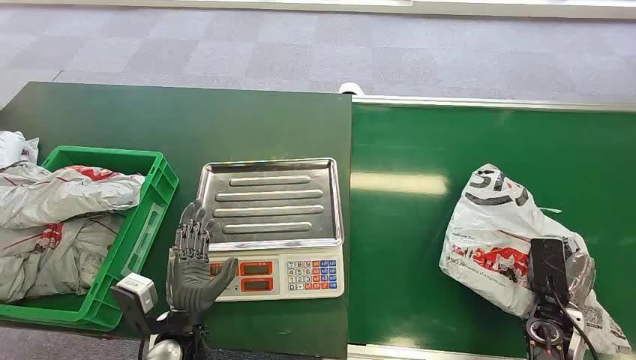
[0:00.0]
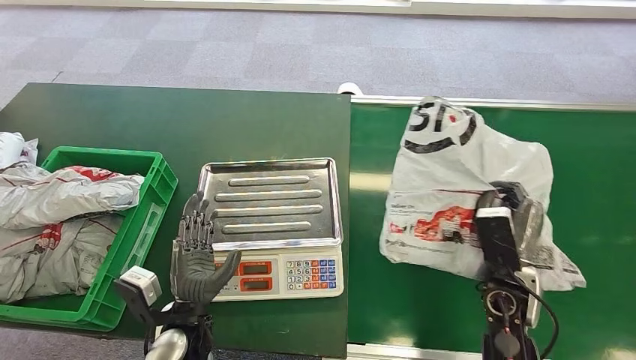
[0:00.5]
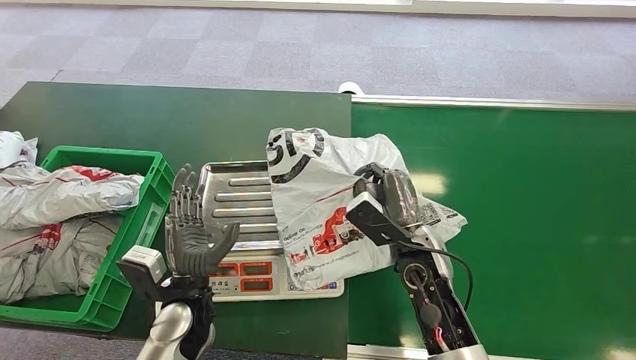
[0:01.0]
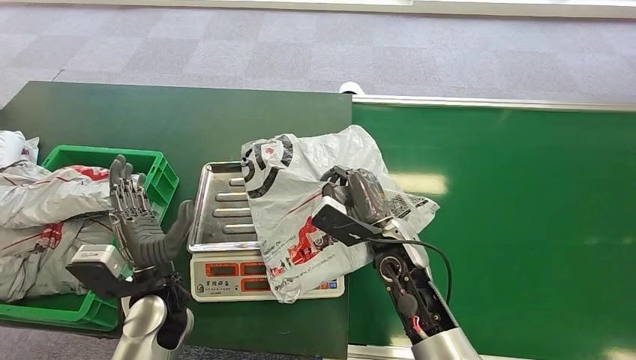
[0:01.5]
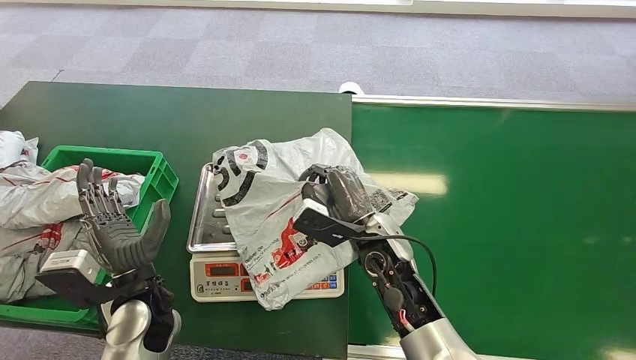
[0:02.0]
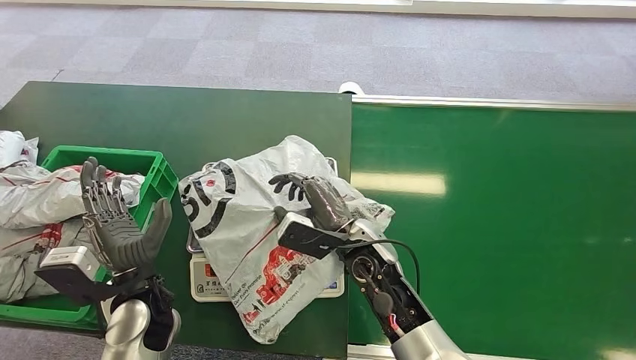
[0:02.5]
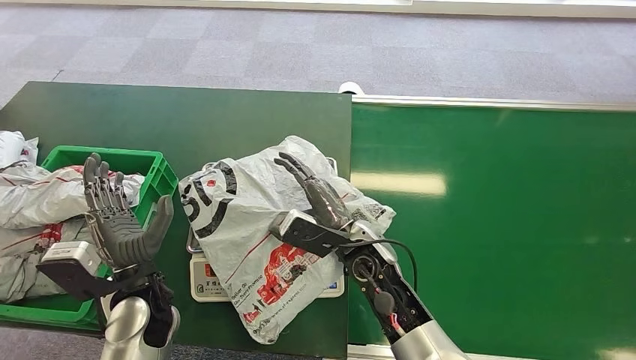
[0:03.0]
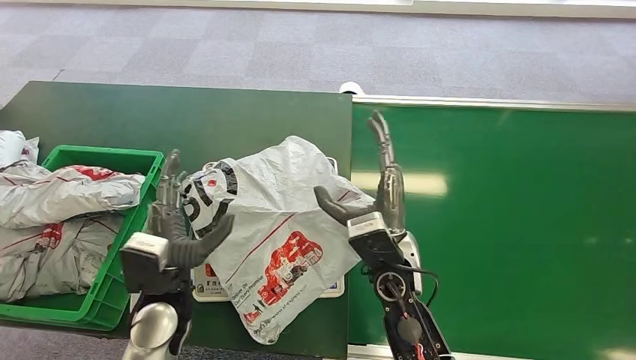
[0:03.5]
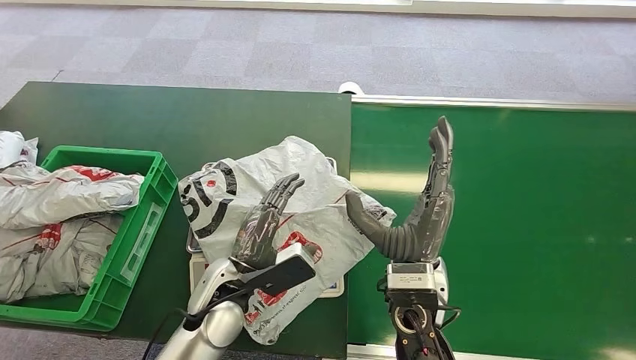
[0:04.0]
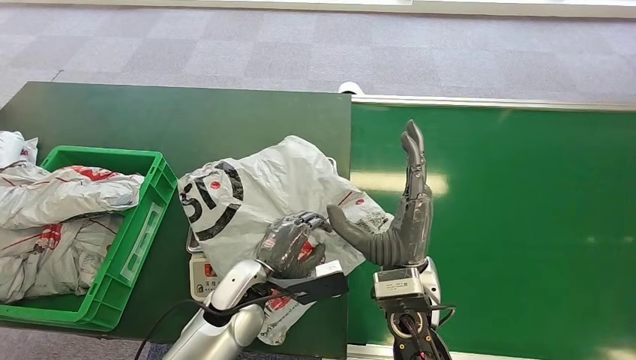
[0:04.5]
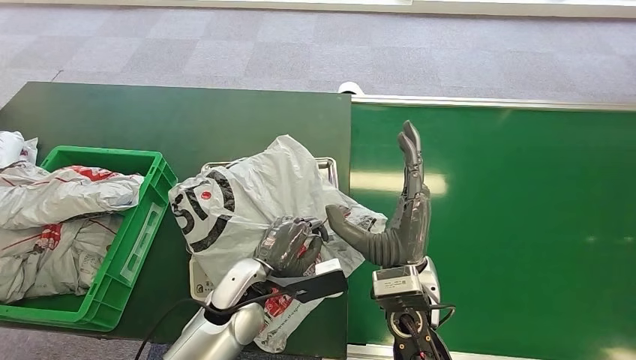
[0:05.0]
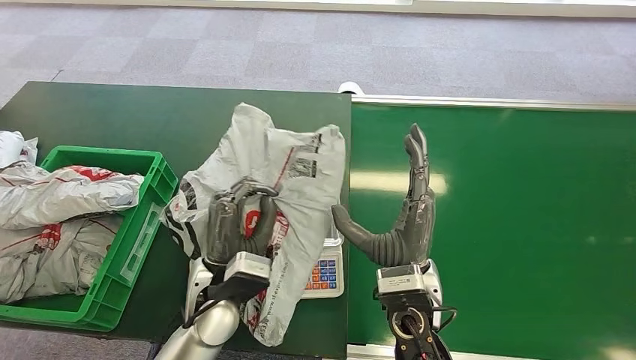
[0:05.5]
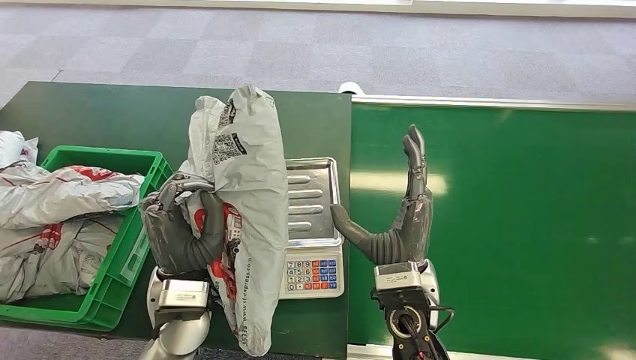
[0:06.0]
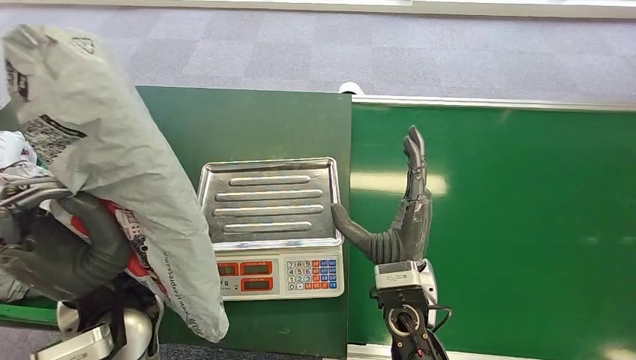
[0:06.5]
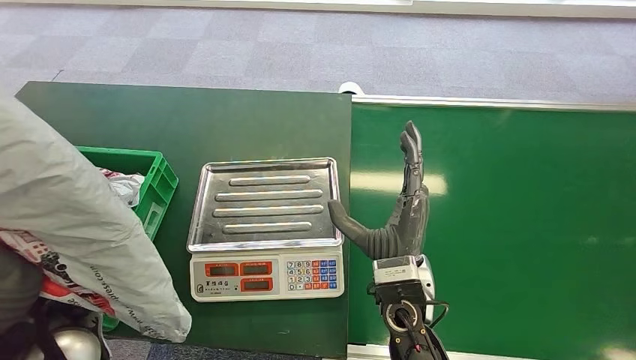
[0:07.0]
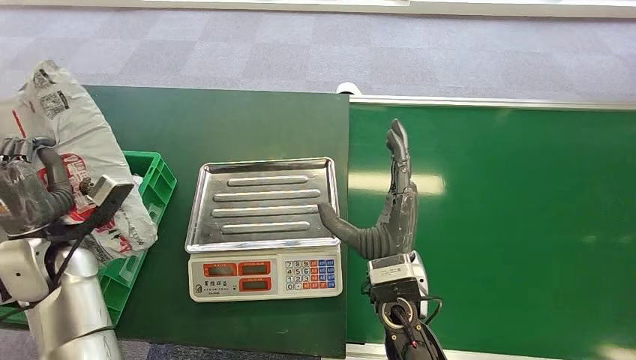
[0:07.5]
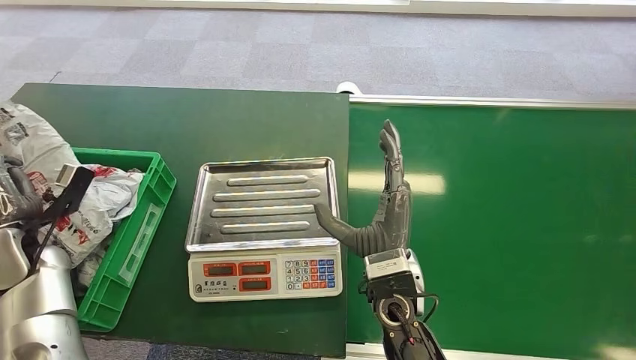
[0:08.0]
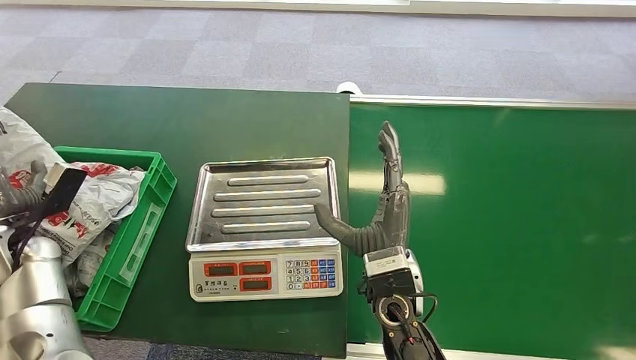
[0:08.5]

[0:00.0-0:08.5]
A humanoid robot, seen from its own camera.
Step, 0:01.0 to 0:02.5: Place the package onto the inbound machine.
Step, 0:05.0 to 0:06.5: Pick up the package from the inbound machine.
Step, 0:07.0 to 0:08.5: Place the package into the parcel locker.
